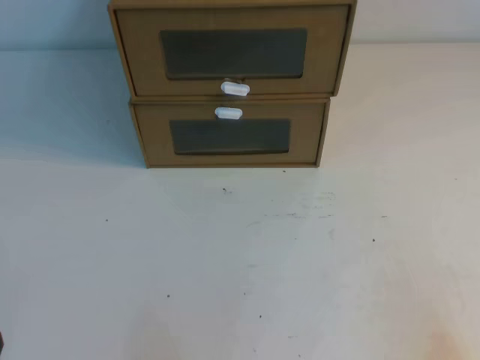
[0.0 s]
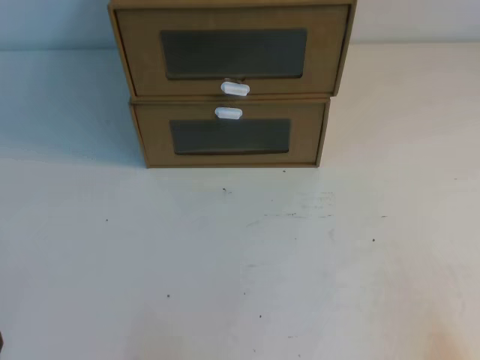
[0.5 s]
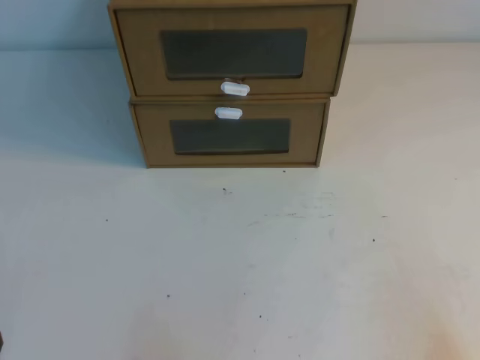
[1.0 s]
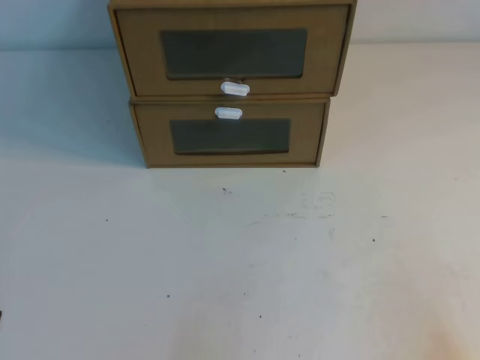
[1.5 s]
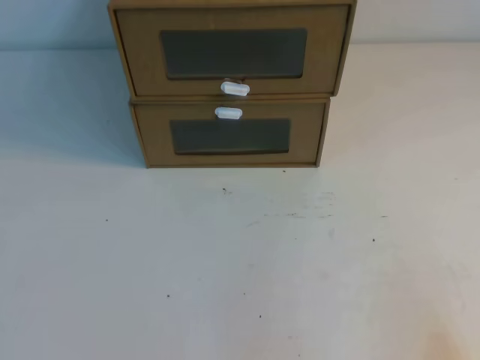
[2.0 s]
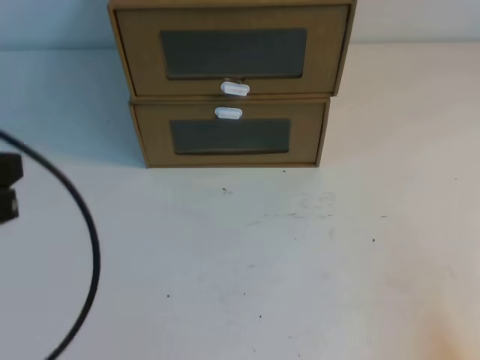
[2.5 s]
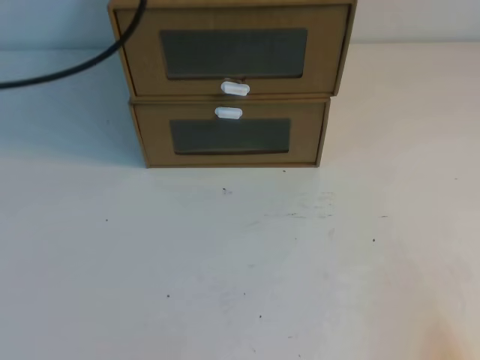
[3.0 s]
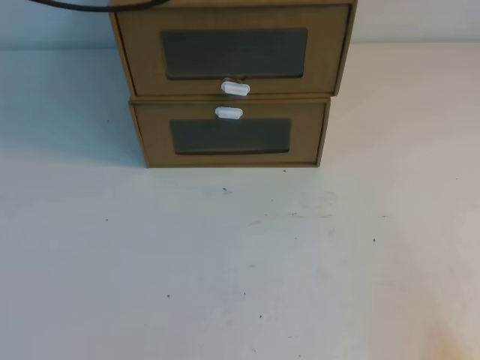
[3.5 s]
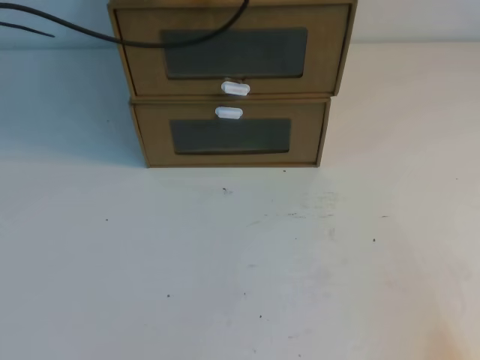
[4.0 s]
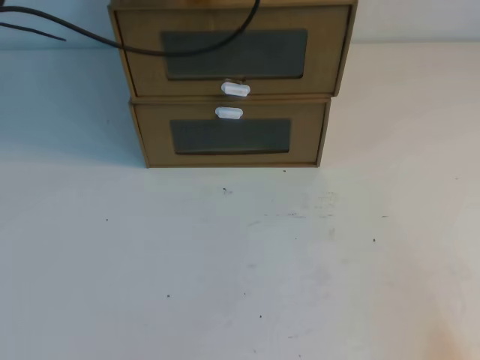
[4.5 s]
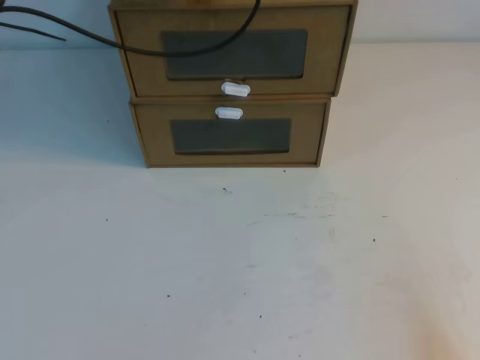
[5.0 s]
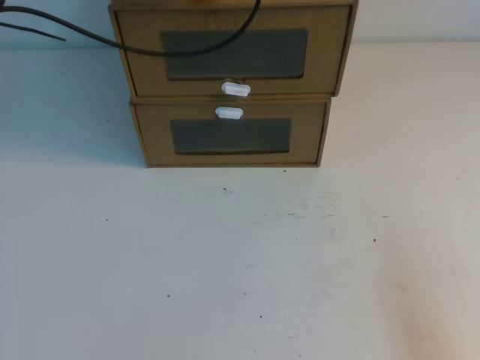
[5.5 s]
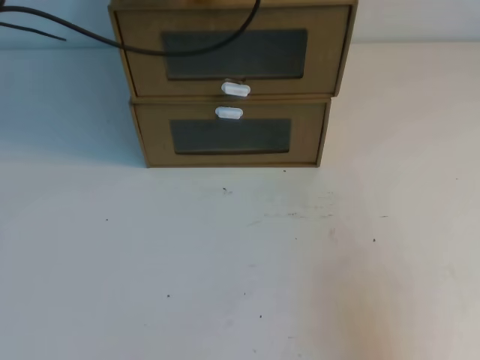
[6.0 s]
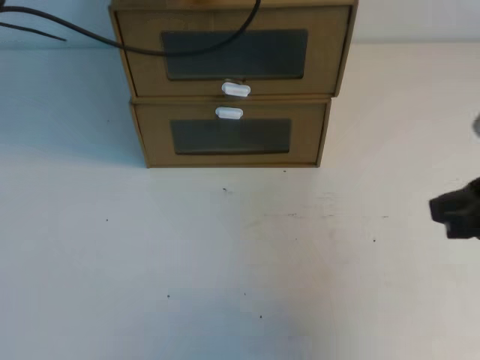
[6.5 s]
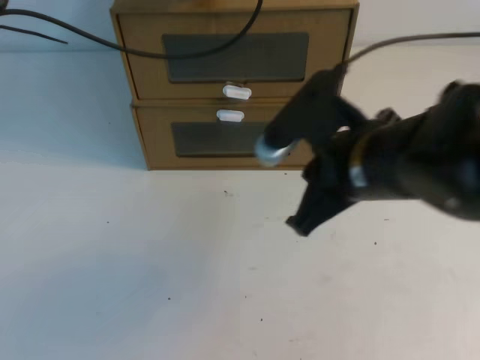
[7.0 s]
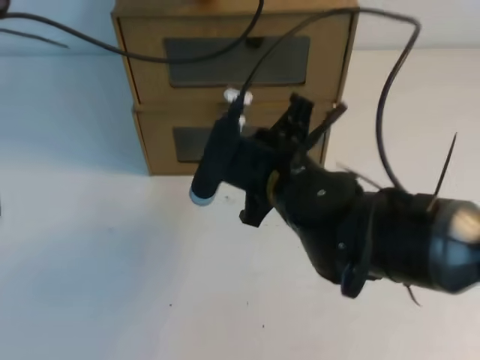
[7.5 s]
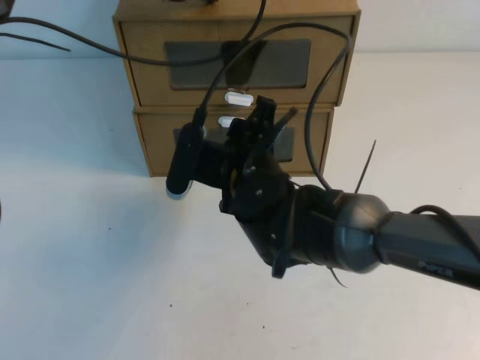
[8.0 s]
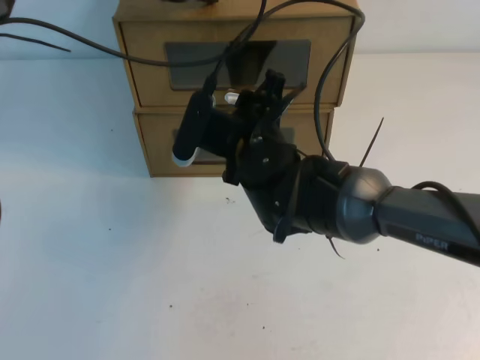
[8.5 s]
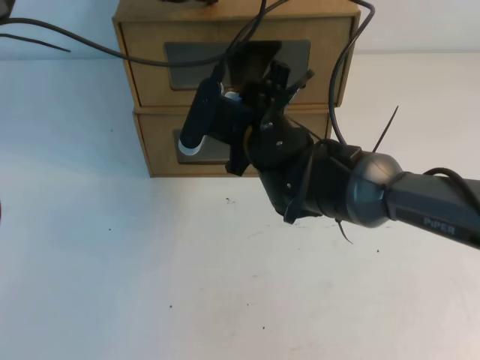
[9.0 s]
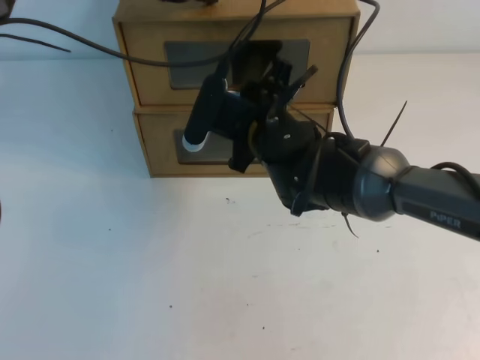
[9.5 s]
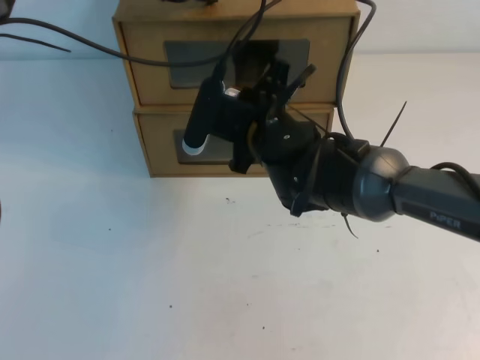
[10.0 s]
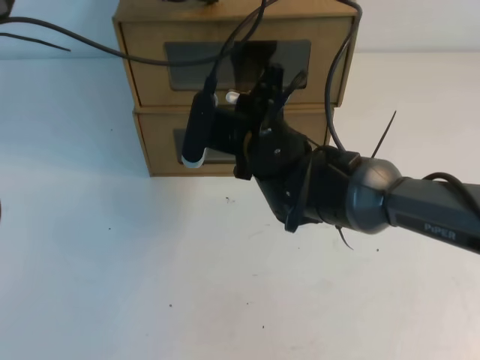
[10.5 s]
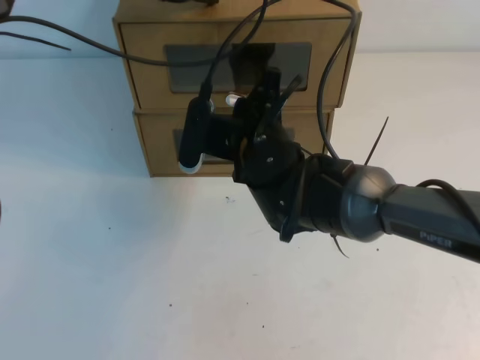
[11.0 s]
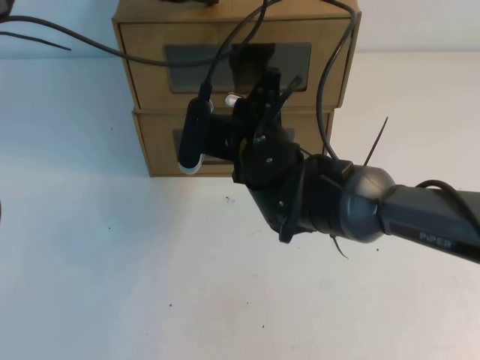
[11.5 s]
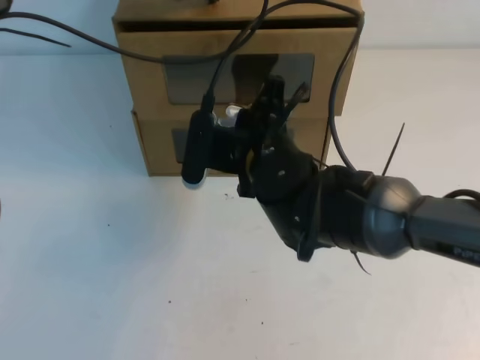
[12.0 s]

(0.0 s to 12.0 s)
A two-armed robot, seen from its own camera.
Task of the whole recording: open the shoebox on the table.
2.0 s - 4.0 s: The left gripper heads forward and upward, covering approximately 40 cm.
4.0 s - 6.0 s: The right gripper shifts approximately 10 cm upward.
6.0 s - 8.0 s: The right gripper travels to the left and forward by about 35 cm, and opens up.
8.0 s - 10.0 s: The right gripper heads forward, covering roughly 5 cm, and closes its fingers.
10.0 s - 12.0 s: There are only small adjustments of the grippers.

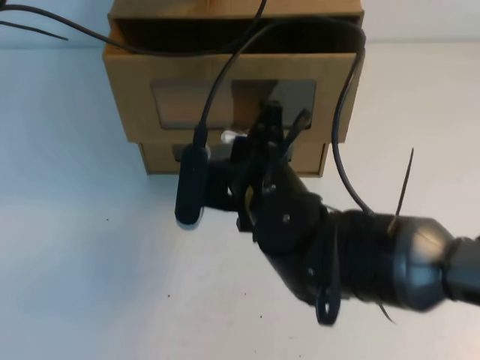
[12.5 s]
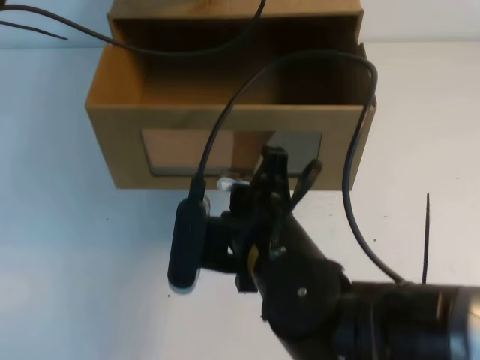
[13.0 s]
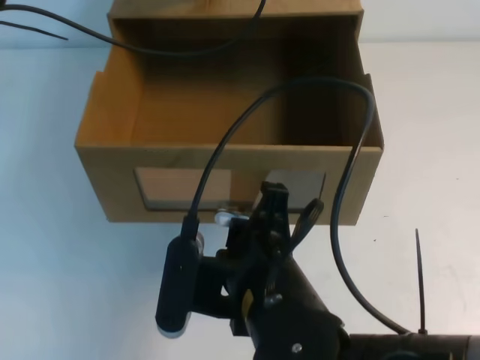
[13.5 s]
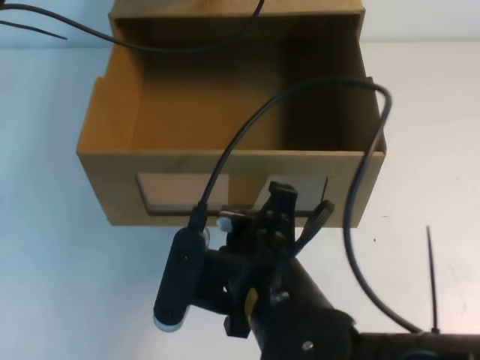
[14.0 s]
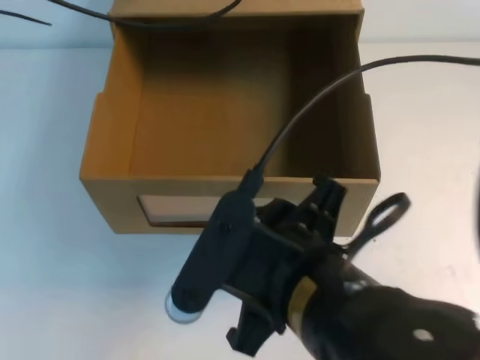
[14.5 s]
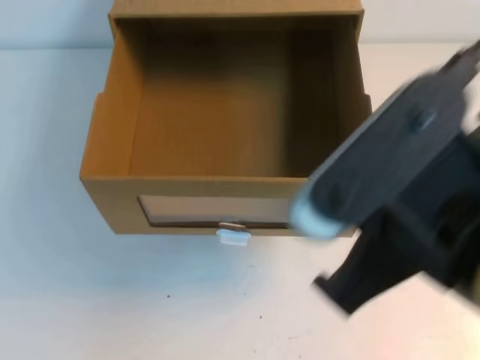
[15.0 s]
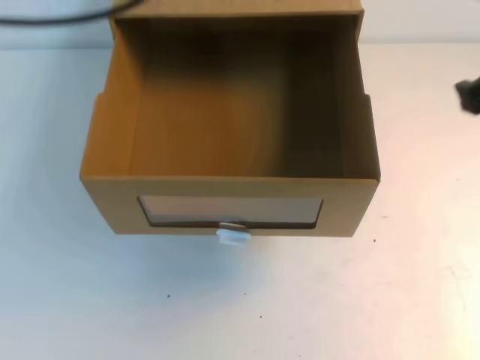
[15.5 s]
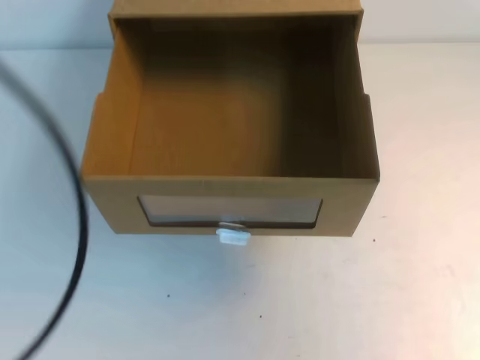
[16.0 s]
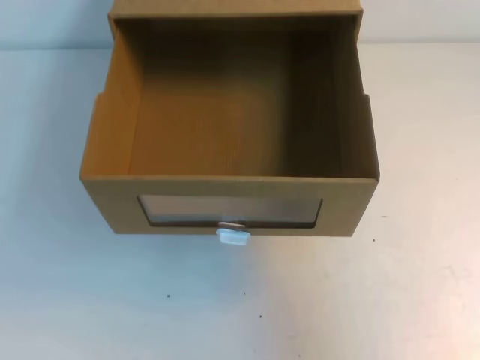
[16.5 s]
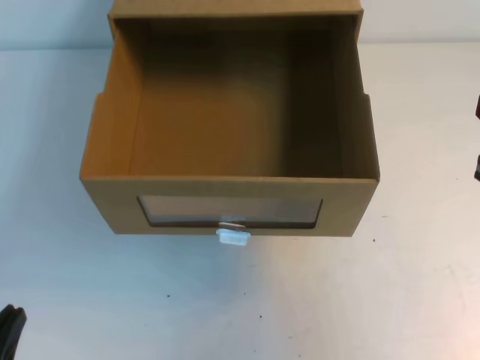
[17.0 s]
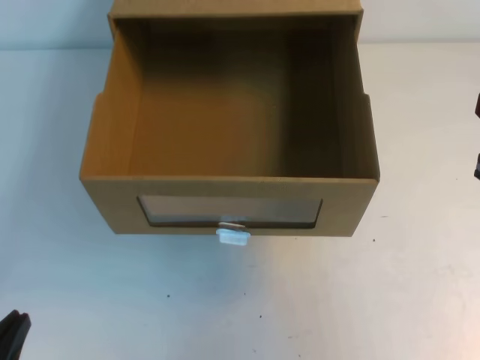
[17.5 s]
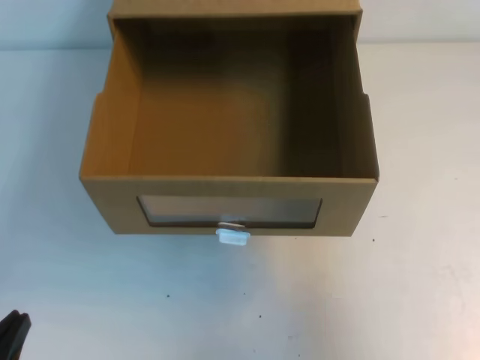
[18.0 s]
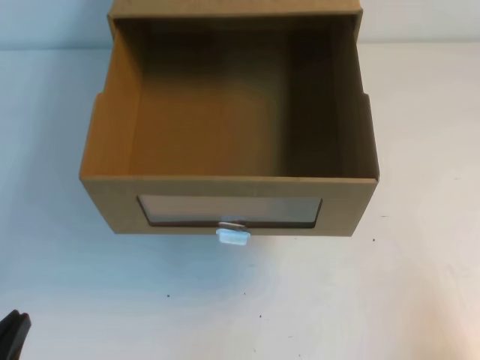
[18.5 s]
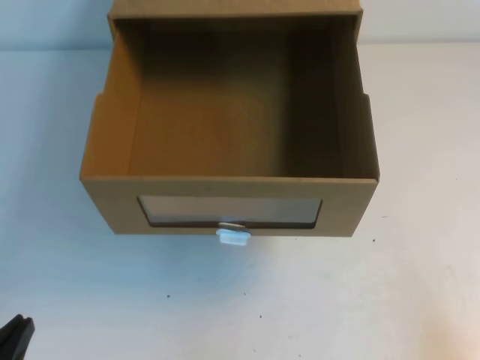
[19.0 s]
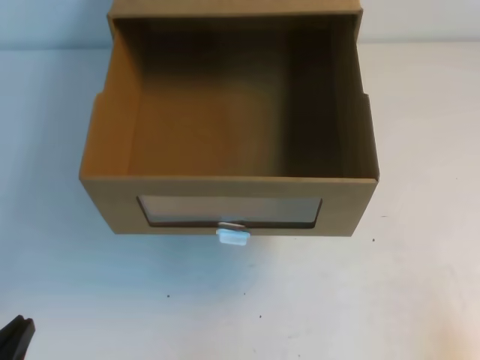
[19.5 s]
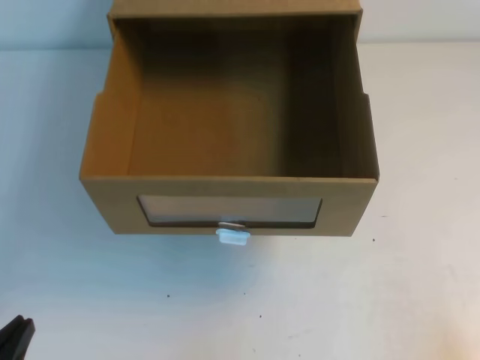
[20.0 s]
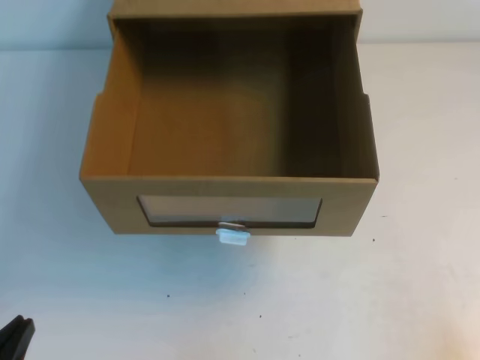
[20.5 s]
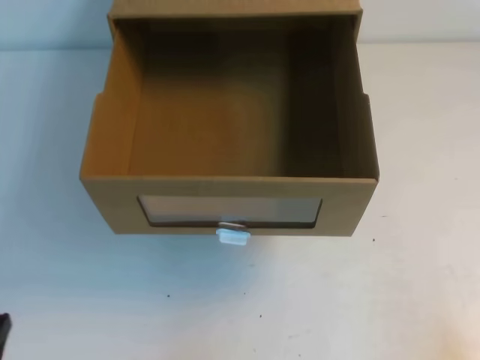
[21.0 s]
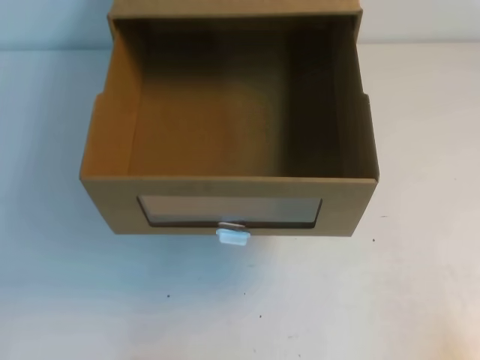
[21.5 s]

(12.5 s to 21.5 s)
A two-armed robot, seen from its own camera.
Task of the whole recording: open the shoebox on the table.
Step, 12.5 s - 21.5 s: Open the shoe box.
12.5 s - 14.5 s: The left gripper is displaced upward by approximately 5 cm. Meanwhile the right gripper heads backward and upward, covering about 15 cm, and opens its fingers.
14.5 s - 17.0 s: The left gripper shifts about 40 cm backward and downward; the right gripper moves to the right, approximately 20 cm, and closes up.
17.0 s - 19.5 s: The right gripper moves downward, backward and to the right, some 20 cm.

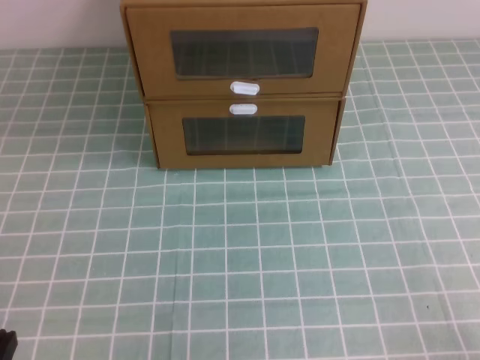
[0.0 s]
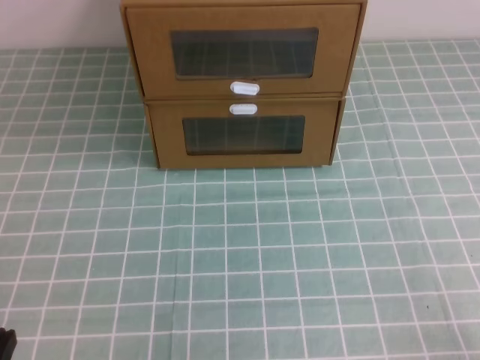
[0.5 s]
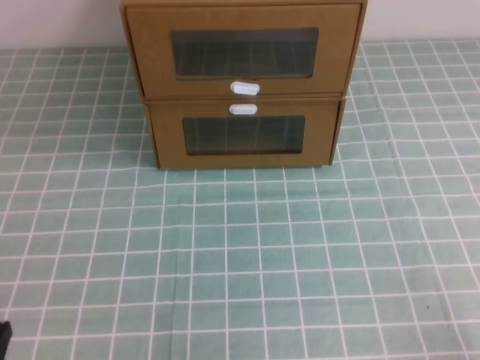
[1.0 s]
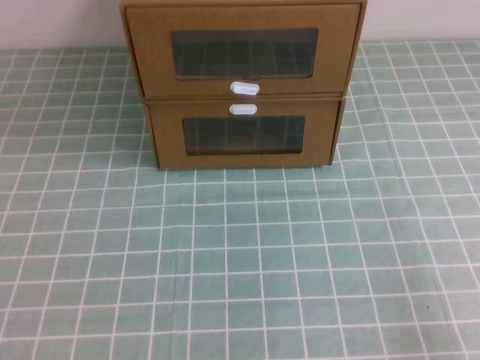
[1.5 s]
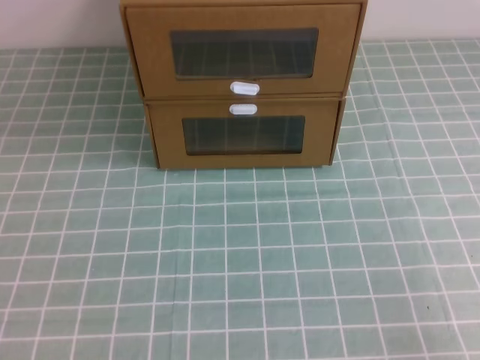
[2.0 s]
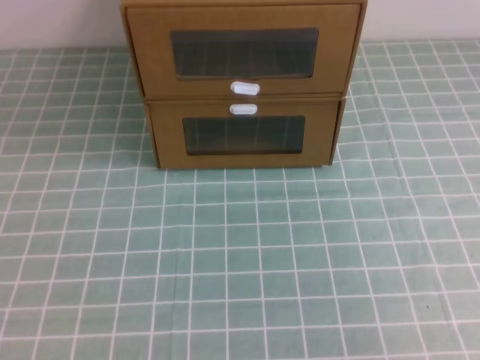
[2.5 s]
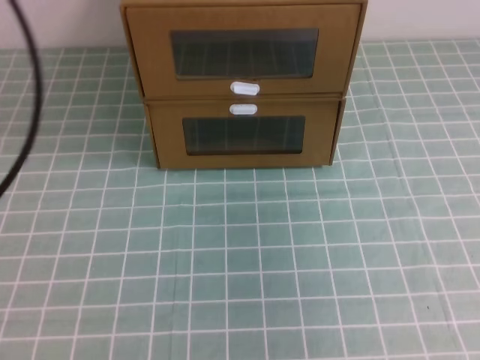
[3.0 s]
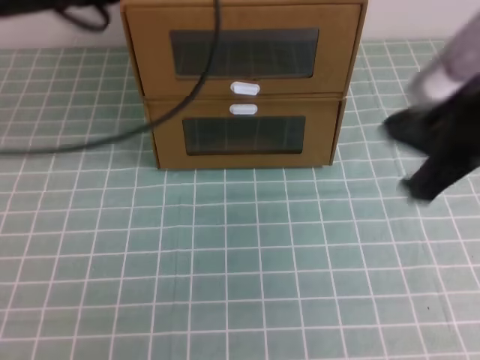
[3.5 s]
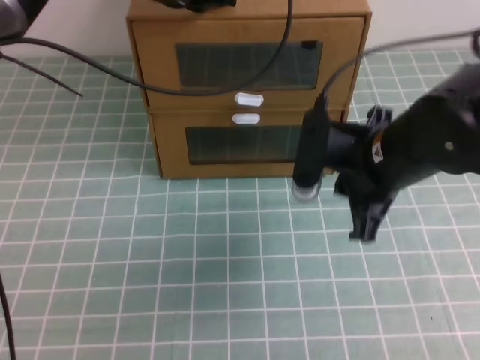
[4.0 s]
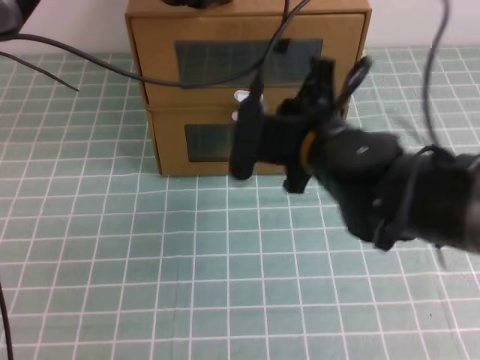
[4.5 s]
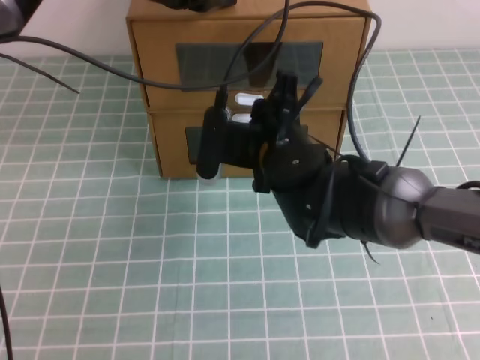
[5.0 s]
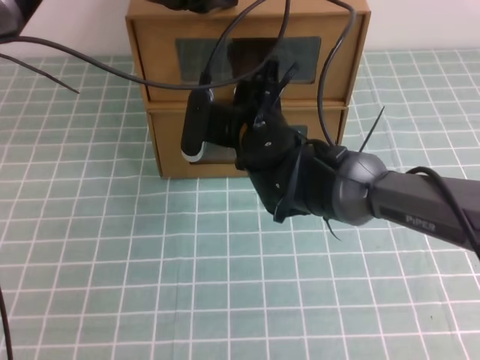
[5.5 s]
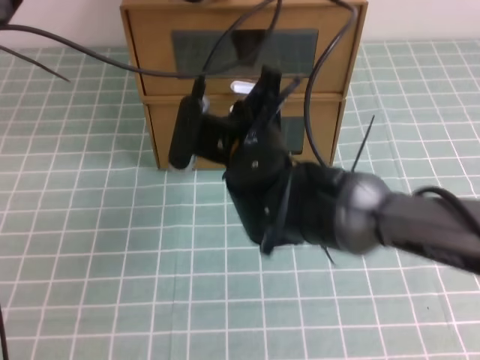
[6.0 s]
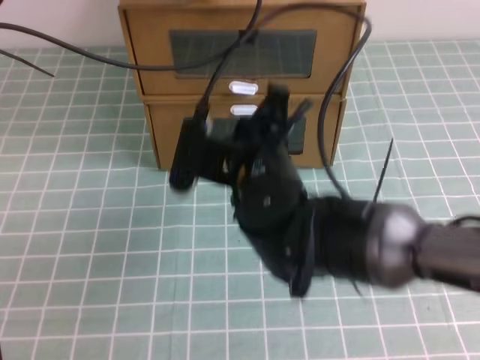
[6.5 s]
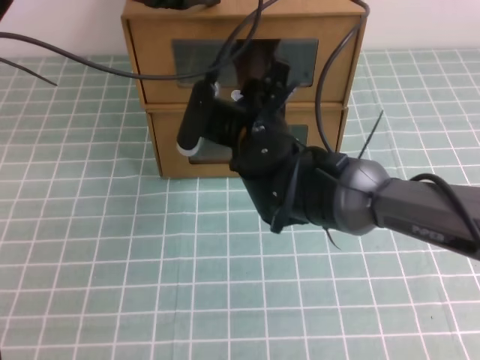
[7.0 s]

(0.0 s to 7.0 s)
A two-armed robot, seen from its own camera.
Task of the whole recording: open the shoebox on the cyan tablecloth.
2.0 s - 3.5 s: The right gripper is displaced forward, to the left and upward by roughly 25 cm; the left gripper heads forward, upward and to the right, covering some 35 cm.
3.5 s - 5.0 s: The left gripper travels forward and to the right by about 15 cm. Meanwhile the right gripper goes approximately 25 cm to the left, downward and forward, and opens.
5.0 s - 7.0 s: The right gripper moves some 5 cm backward and comes back, and opens up.
